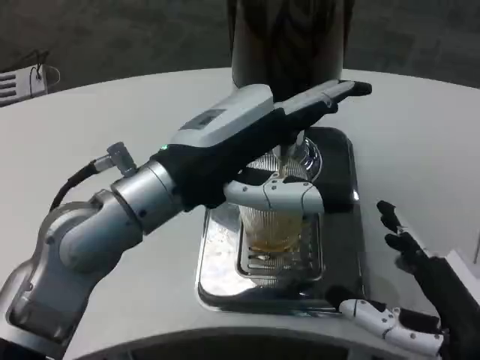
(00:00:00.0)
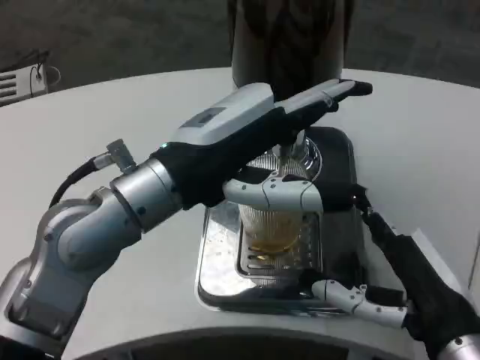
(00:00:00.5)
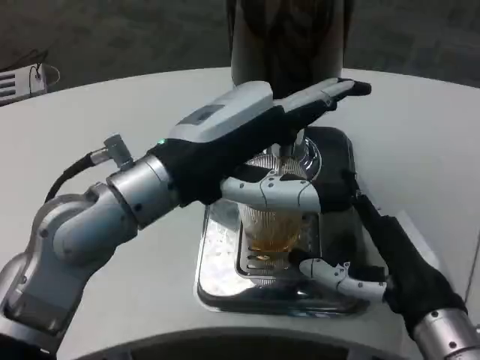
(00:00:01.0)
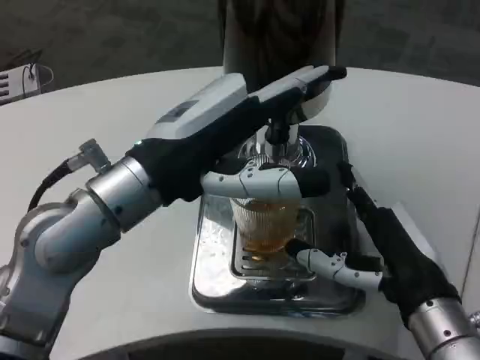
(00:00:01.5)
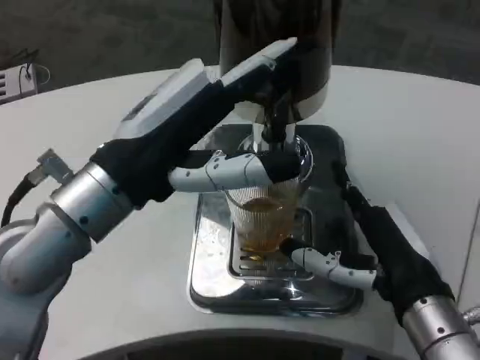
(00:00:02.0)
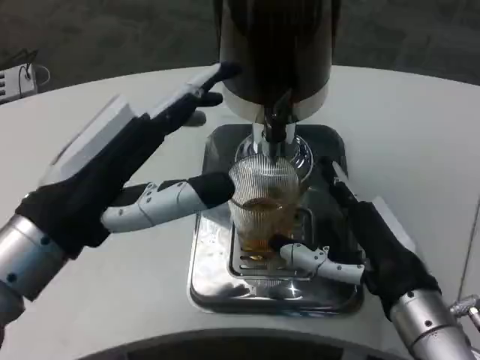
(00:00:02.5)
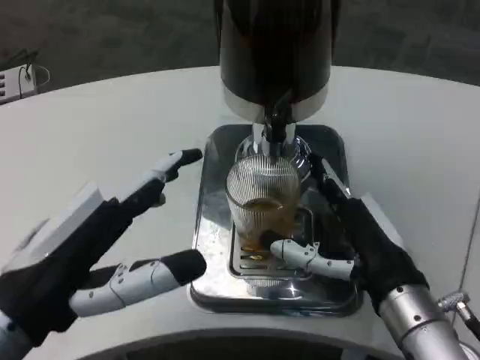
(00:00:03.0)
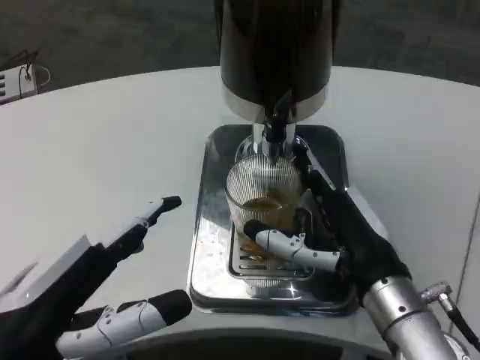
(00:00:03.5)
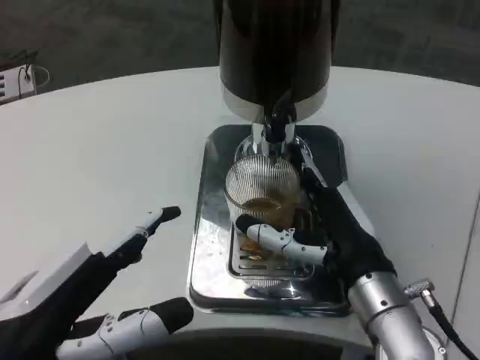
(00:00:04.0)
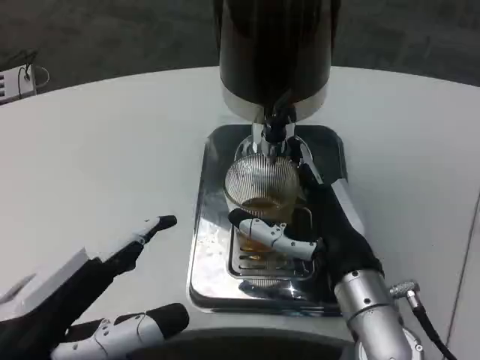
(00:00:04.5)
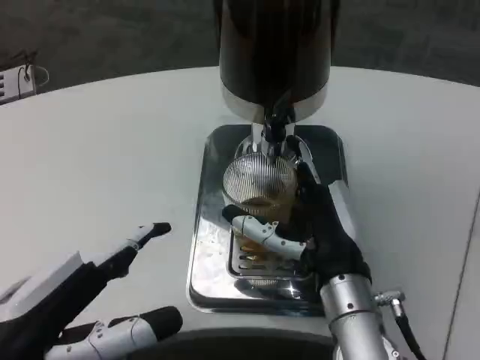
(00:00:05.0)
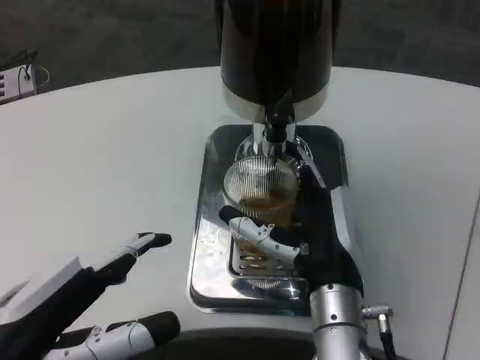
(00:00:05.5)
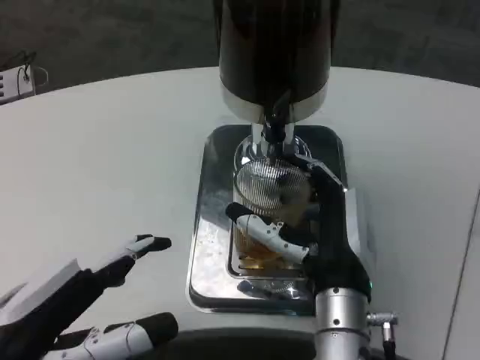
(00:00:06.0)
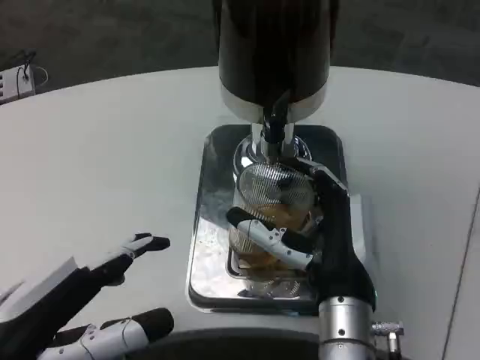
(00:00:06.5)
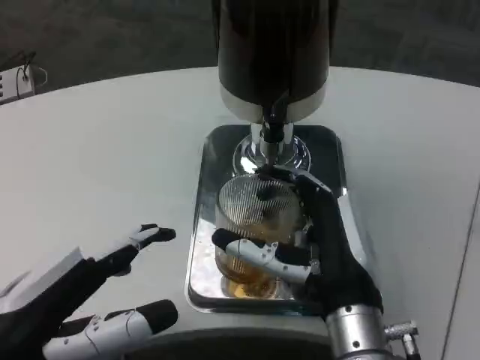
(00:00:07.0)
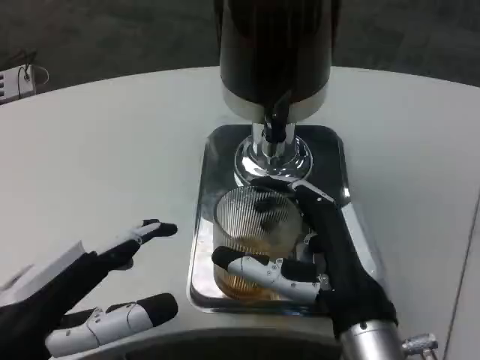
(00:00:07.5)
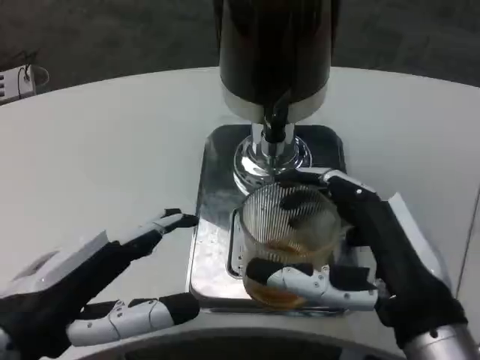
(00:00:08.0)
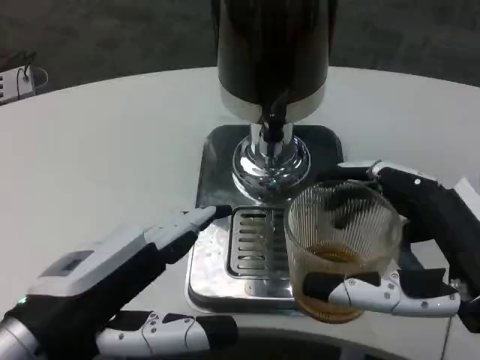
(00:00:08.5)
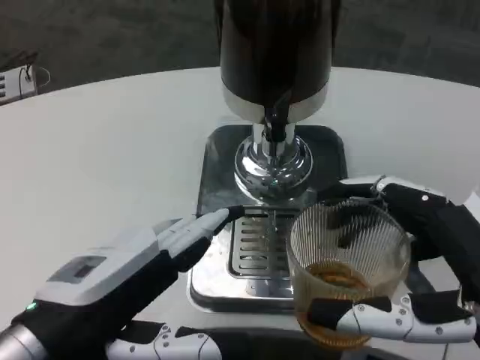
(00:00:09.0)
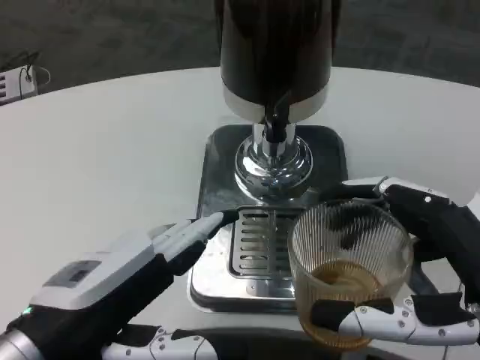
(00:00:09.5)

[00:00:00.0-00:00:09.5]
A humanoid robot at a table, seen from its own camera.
Task of the whole recording: Grasp the cup under the faucet to collect the drink, then remove the cup.
00:00:00.0 to 00:00:02.0: The right hand heads forward, covering approximately 5 cm.
00:00:02.0 to 00:00:04.0: The right hand moves roughly 5 cm. The left hand travels backward, downward and to the left by roughly 15 cm.
00:00:04.0 to 00:00:05.5: The right hand travels to the left by some 5 cm.
00:00:05.5 to 00:00:07.5: The right hand travels backward by approximately 5 cm.
00:00:07.5 to 00:00:09.5: The right hand travels to the right, backward and upward by about 15 cm.

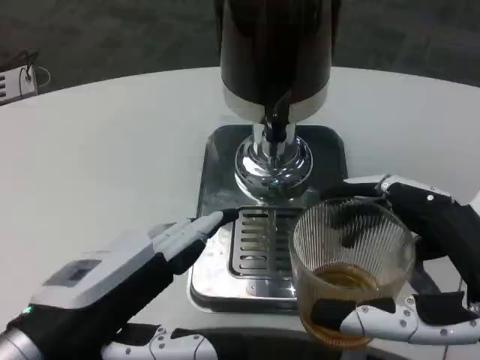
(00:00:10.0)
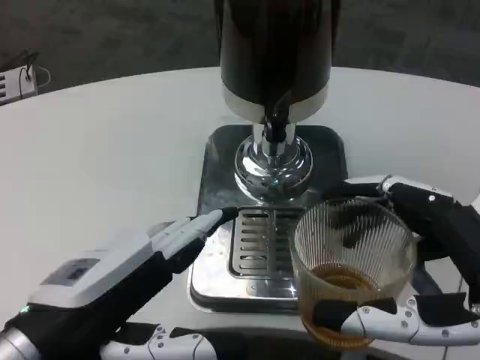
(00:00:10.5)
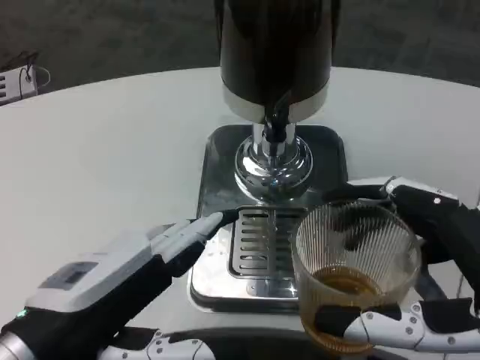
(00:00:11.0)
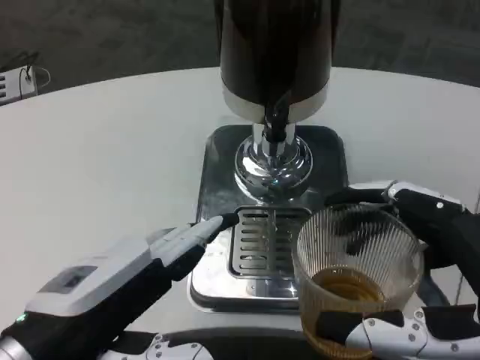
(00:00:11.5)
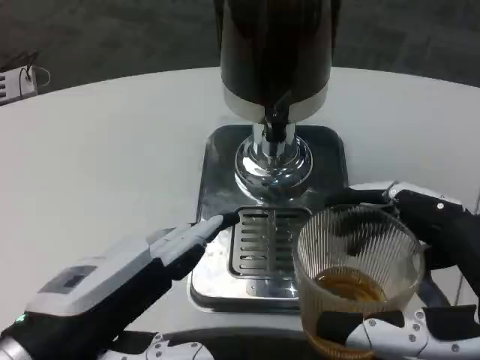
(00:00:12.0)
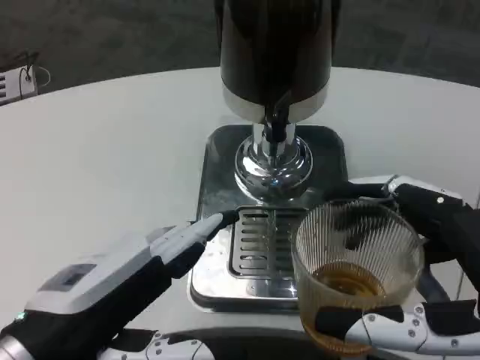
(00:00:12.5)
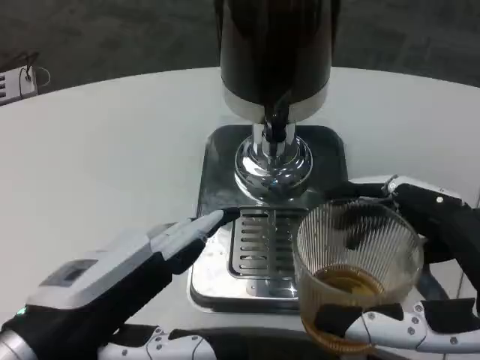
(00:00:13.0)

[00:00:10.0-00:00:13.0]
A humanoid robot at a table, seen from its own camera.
Task of the whole recording: Grasp the cup under the faucet to collect the drink, then remove the cup.
00:00:10.0 to 00:00:13.0: The two hands keep their place.

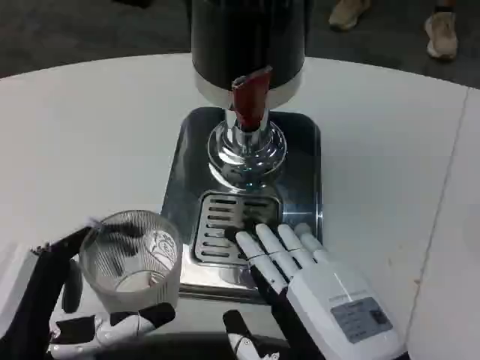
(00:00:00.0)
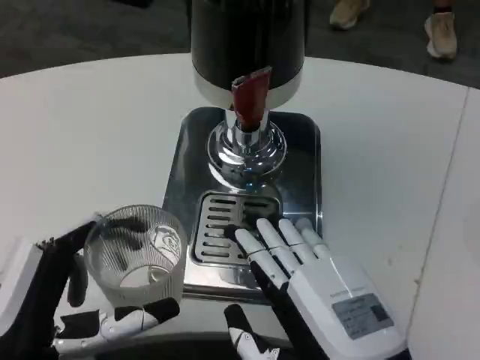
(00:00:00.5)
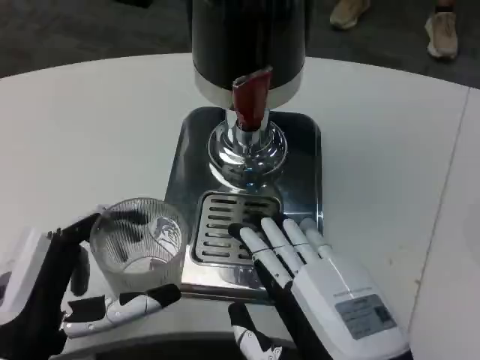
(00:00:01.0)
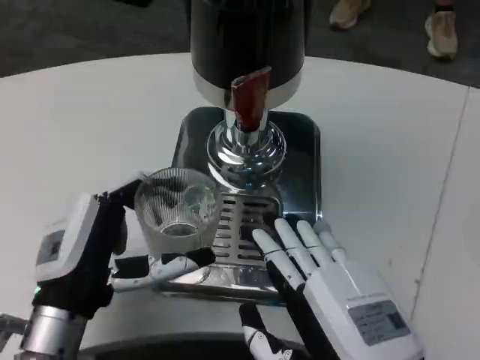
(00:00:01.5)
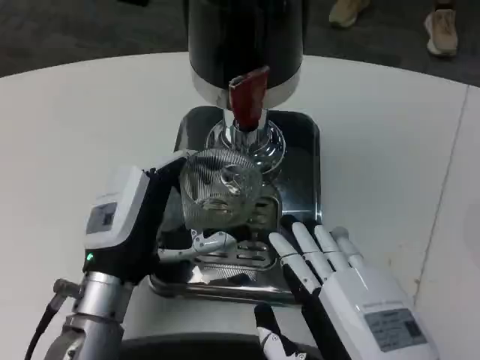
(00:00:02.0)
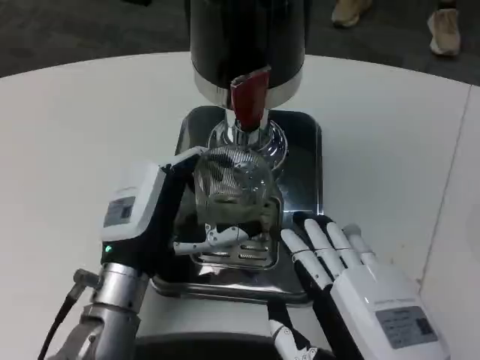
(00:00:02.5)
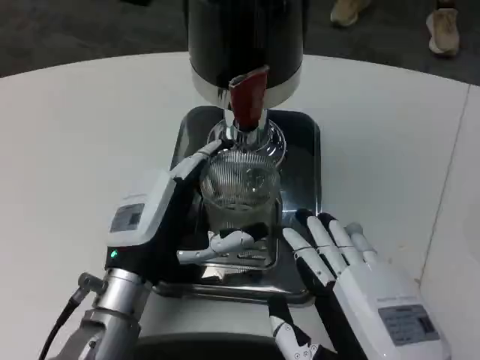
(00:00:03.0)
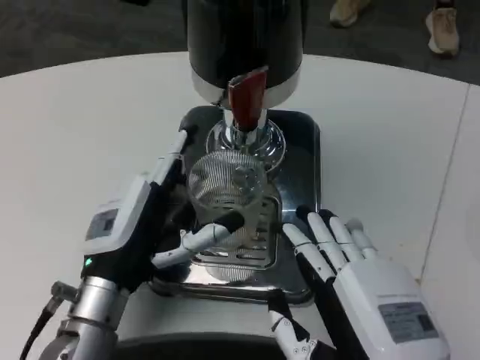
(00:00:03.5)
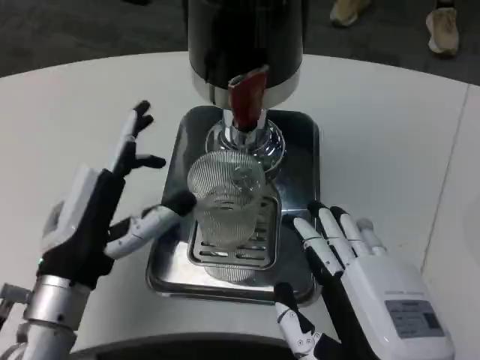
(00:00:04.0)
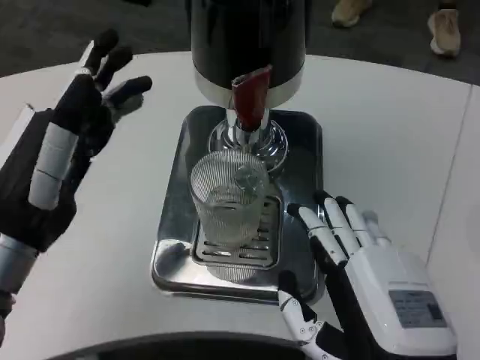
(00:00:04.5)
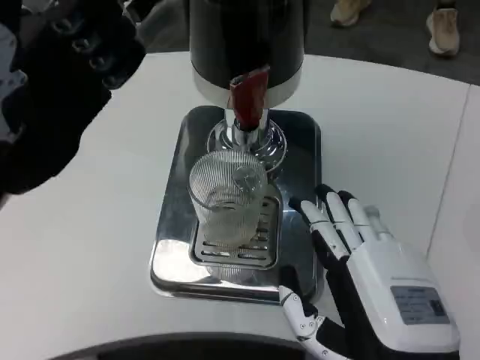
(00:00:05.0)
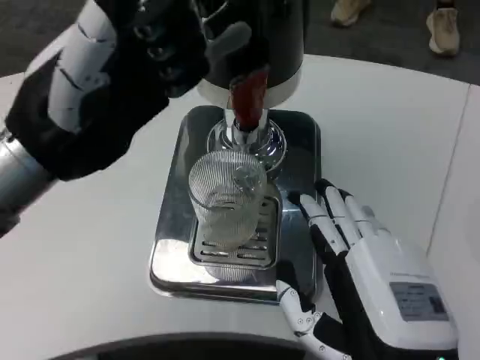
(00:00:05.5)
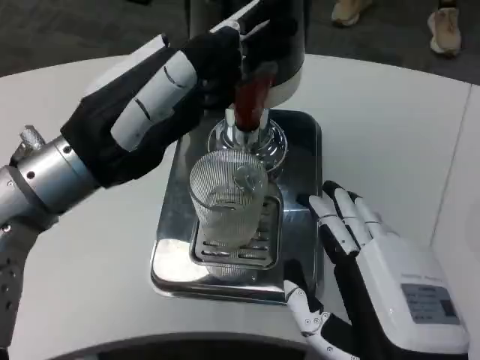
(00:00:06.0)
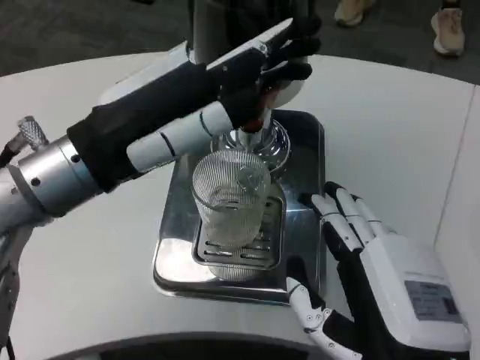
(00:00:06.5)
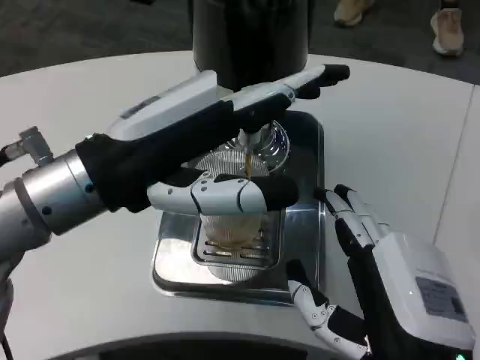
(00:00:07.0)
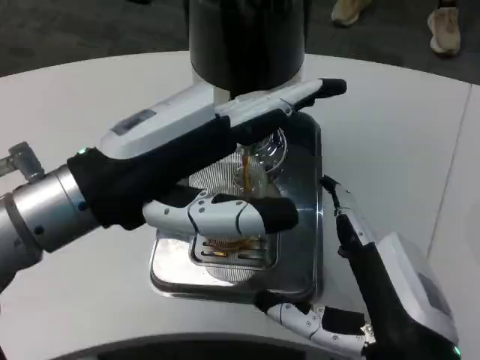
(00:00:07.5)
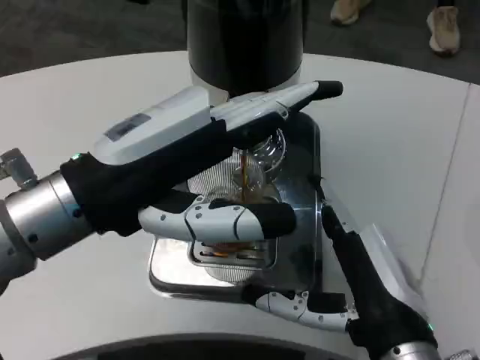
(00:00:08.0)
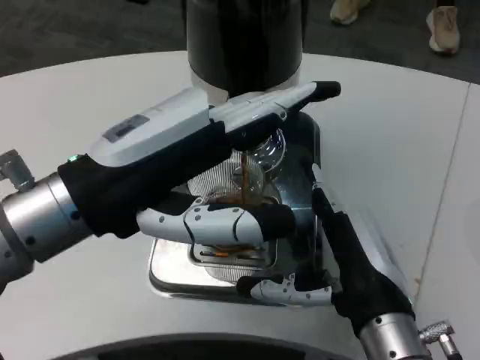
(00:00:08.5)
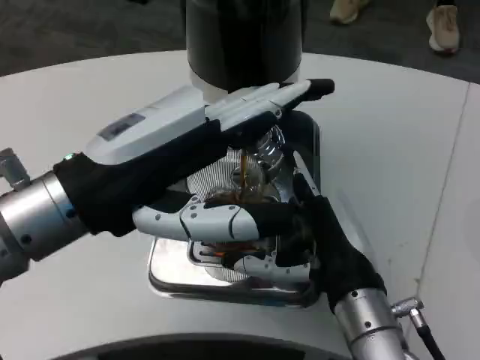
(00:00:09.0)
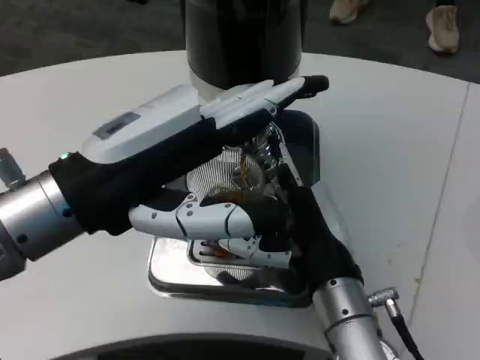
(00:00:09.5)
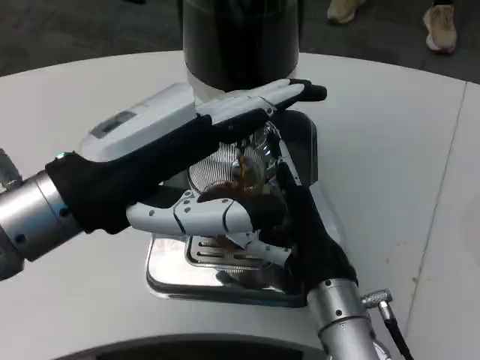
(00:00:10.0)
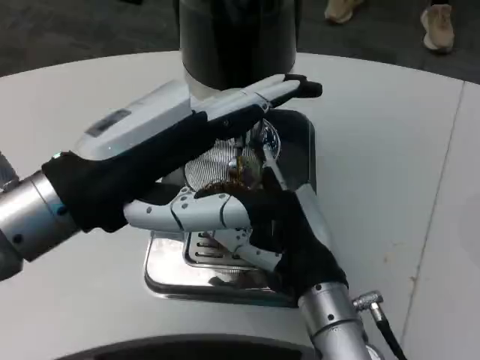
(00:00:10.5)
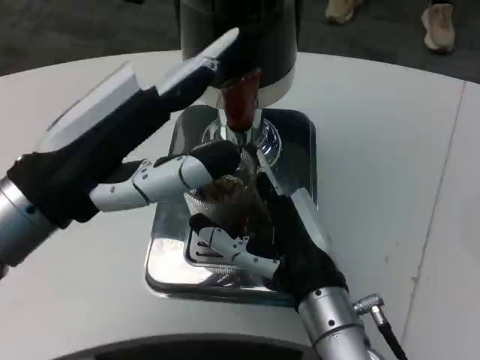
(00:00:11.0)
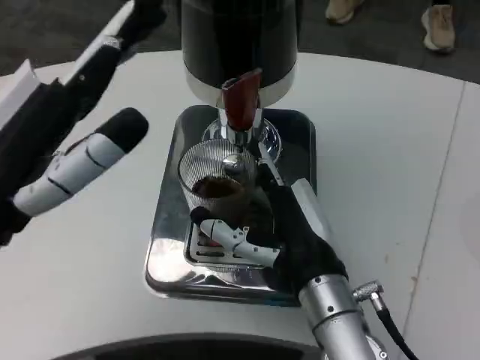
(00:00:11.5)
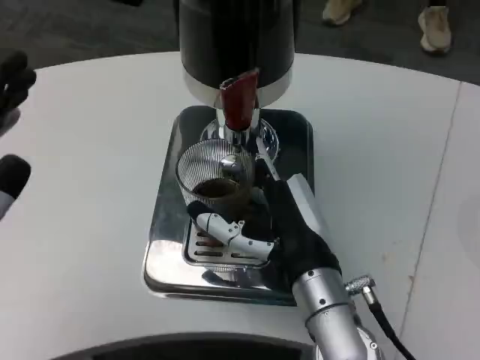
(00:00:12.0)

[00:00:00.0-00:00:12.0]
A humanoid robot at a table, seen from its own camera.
Task of the whole recording: Grasp the cup under the faucet to collect the drink, then remove the cup.
00:00:00.0 to 00:00:02.0: The left hand goes about 15 cm forward and to the right.
00:00:04.0 to 00:00:06.0: The left hand goes some 15 cm upward.
00:00:06.0 to 00:00:08.0: The right hand goes roughly 5 cm forward.
00:00:08.0 to 00:00:10.0: The right hand shifts approximately 5 cm forward.
00:00:10.0 to 00:00:12.0: The left hand goes approximately 15 cm backward, to the left and downward.

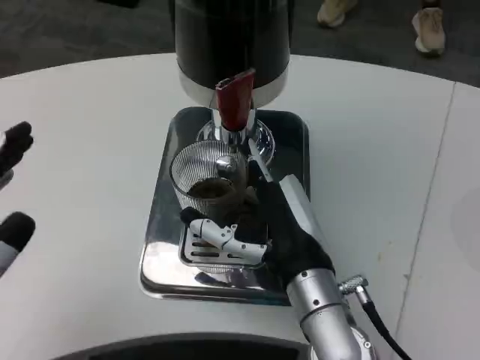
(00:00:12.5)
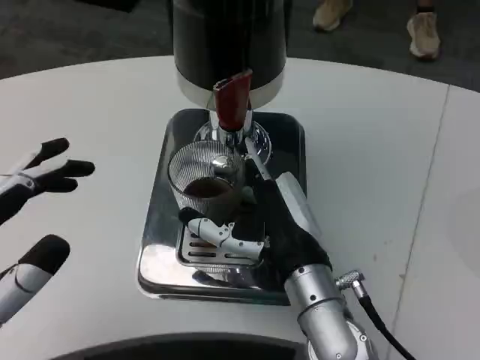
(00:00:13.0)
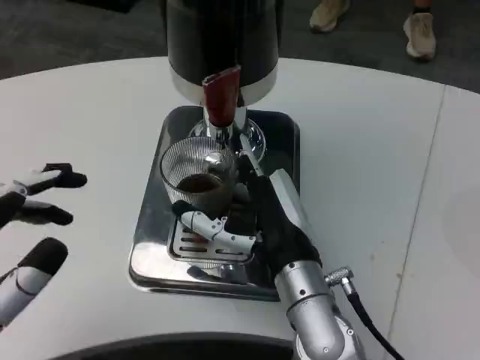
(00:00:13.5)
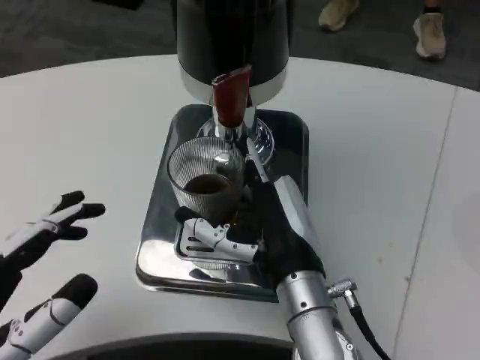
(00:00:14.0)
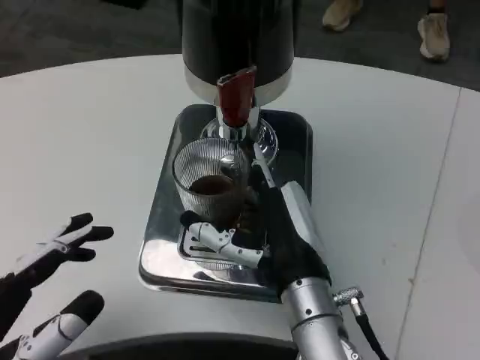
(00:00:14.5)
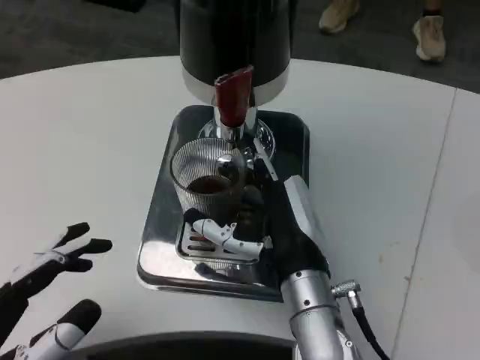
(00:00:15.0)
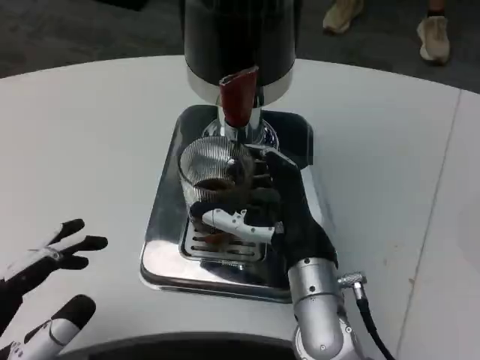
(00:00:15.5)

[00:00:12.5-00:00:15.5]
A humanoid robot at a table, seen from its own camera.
Task of the whole recording: Grasp the cup under the faucet to collect the drink, then remove the cup.
00:00:12.5 to 00:00:14.0: There are only small adjustments of the hands.
